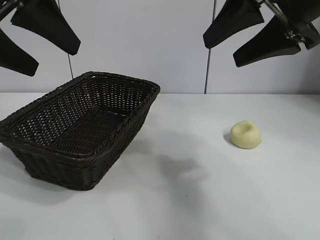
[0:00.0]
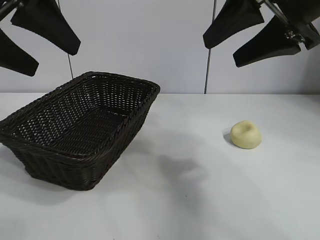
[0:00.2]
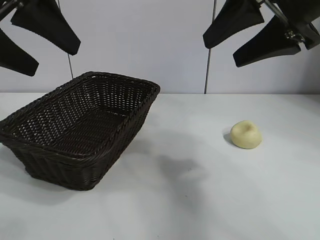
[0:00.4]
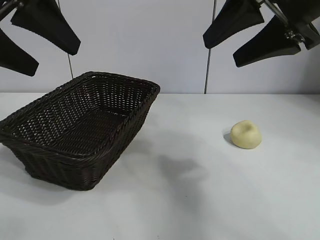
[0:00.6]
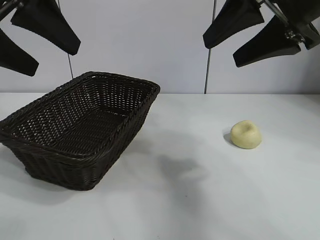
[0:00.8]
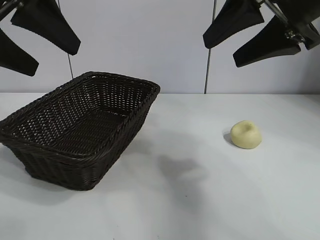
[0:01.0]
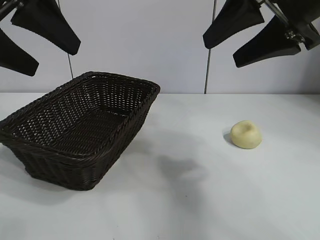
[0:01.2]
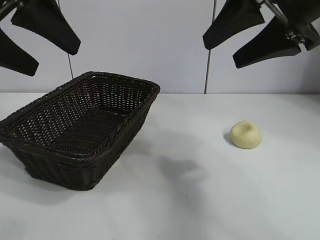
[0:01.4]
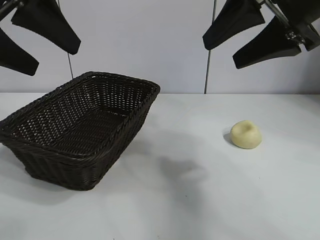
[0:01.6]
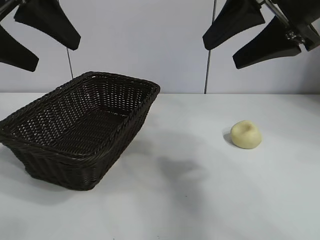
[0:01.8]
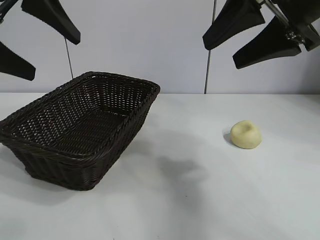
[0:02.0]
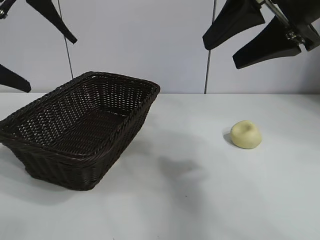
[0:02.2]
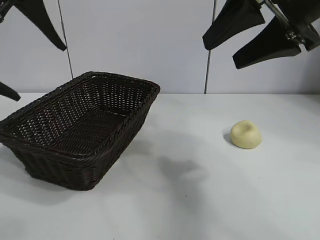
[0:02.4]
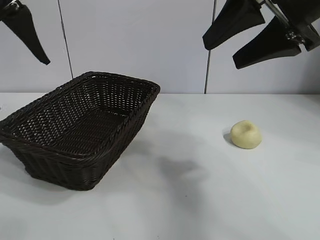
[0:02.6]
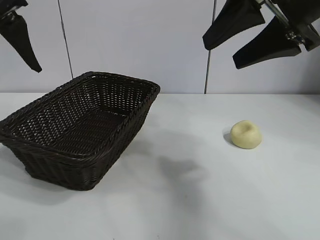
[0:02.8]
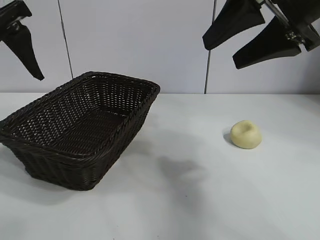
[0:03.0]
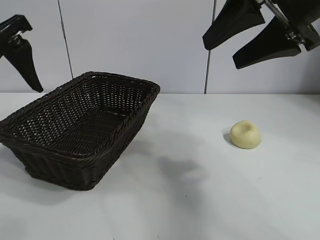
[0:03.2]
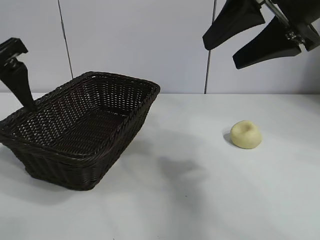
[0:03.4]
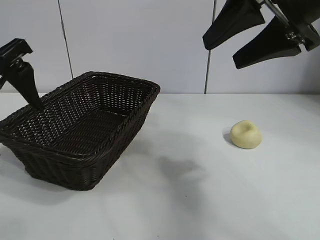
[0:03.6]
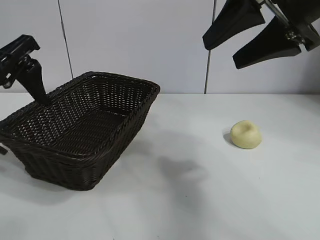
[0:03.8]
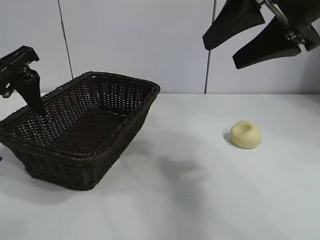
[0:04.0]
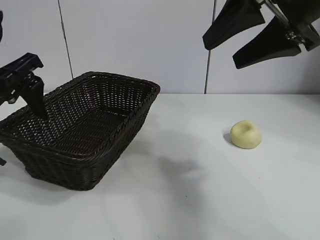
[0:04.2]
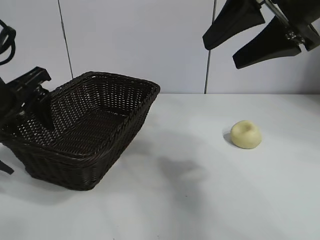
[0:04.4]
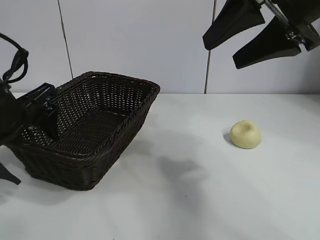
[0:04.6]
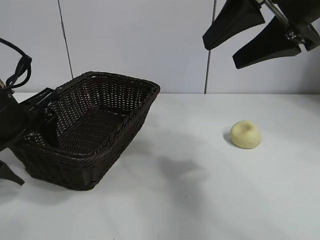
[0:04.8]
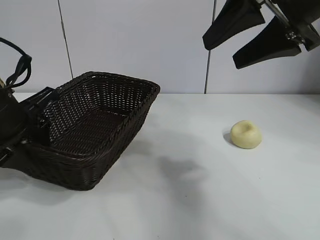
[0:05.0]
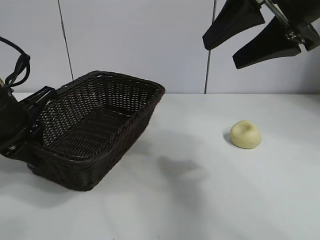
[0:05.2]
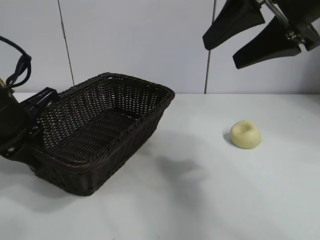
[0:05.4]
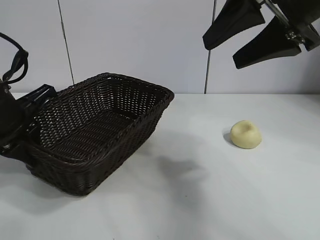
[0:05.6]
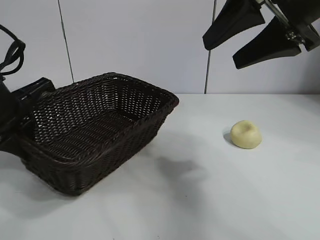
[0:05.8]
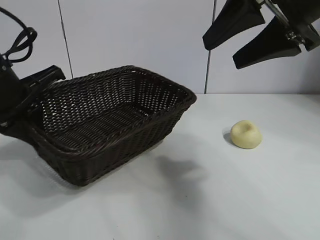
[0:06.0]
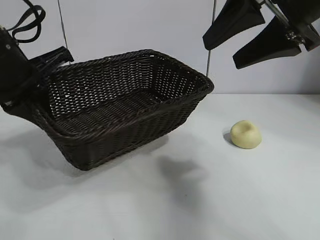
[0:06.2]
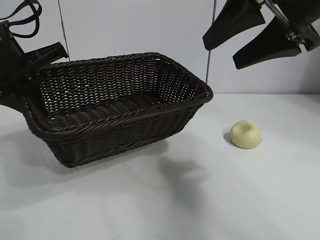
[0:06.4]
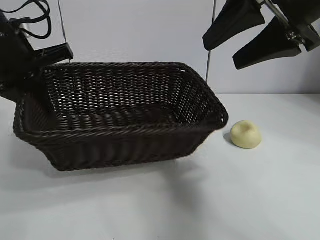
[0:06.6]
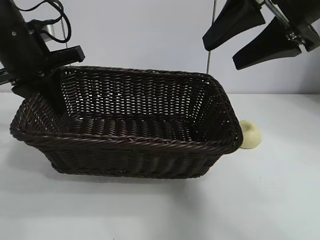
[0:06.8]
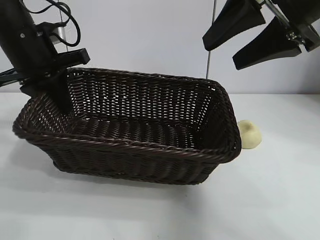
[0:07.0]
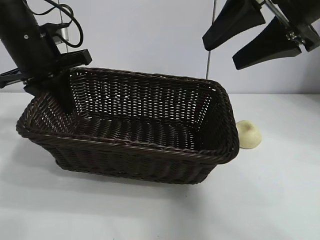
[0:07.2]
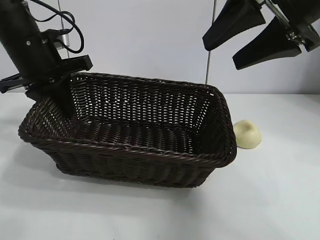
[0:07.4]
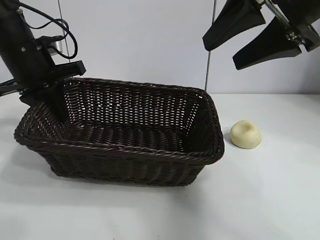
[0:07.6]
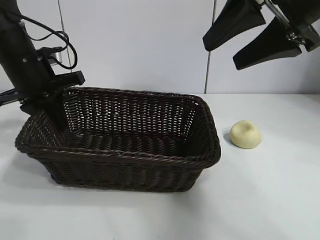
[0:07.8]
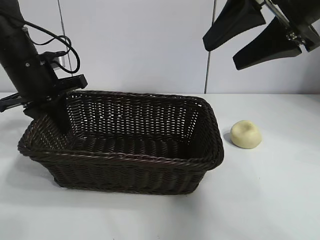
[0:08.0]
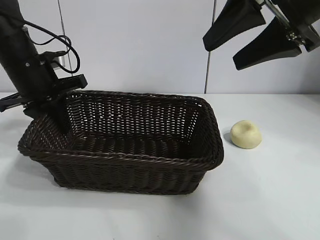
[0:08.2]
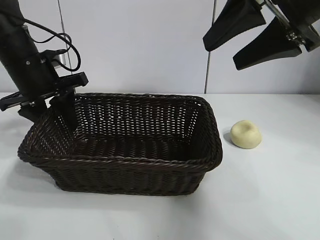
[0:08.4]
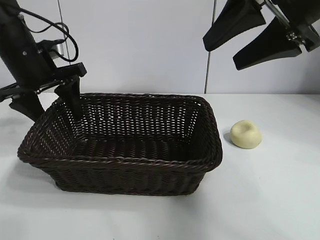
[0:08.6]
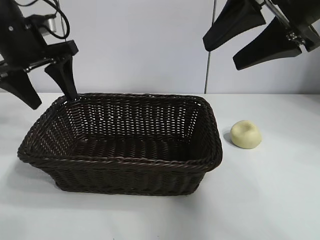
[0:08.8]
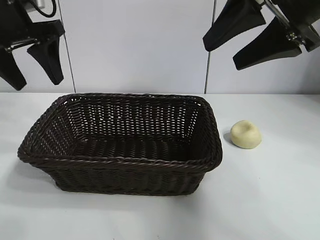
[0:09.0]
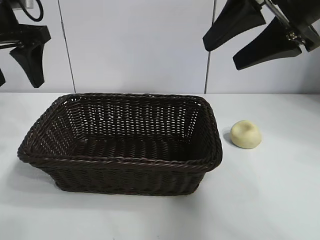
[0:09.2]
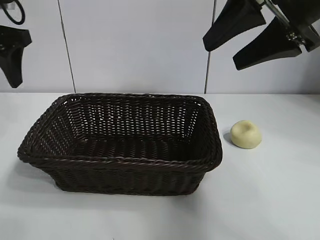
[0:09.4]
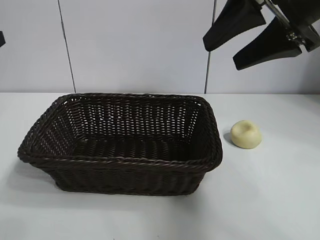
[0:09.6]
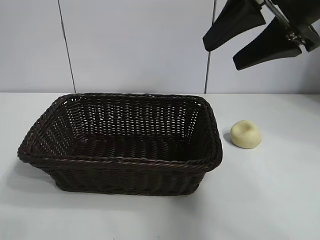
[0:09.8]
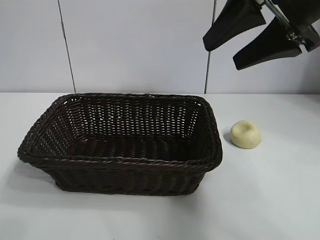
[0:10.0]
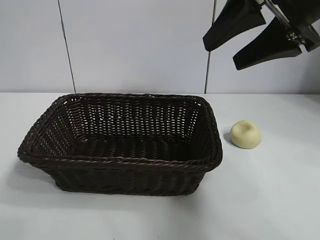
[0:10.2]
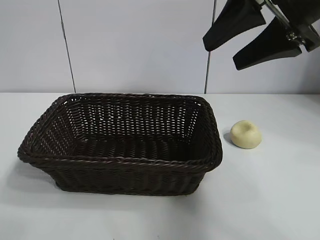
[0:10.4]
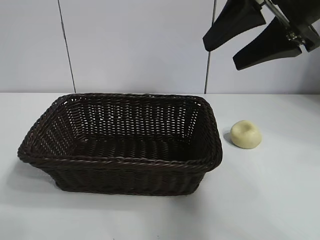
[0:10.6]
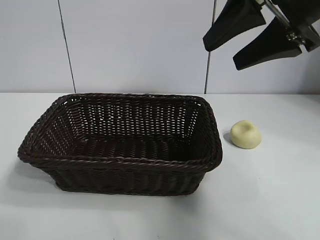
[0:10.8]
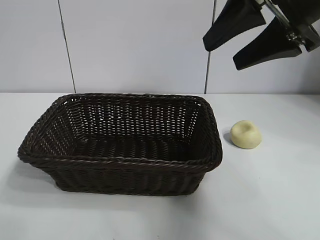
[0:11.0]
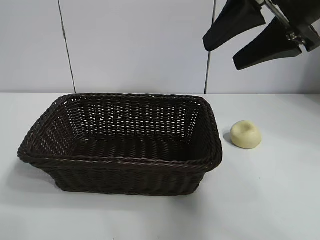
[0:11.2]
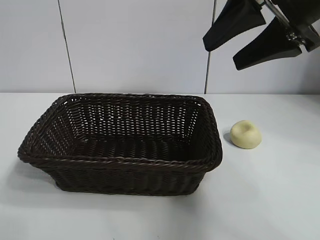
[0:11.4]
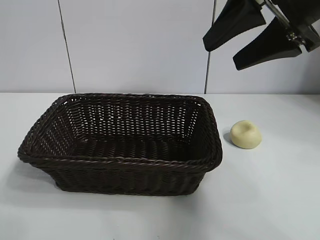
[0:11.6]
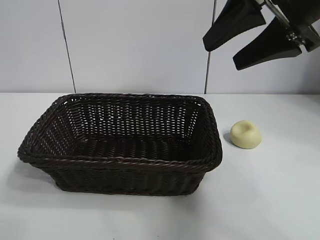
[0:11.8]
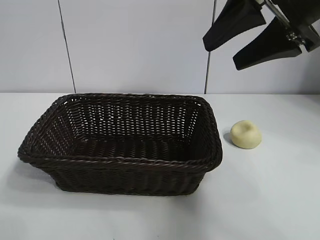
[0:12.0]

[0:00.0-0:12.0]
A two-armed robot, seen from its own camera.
Task of the whole recording: pick up the egg yolk pastry and put it into the basket.
Step, 0:01.8 to 0:05.2: Grasp the basket with left gripper.
Step, 0:05.6 to 0:08.6: Place the basket in the center of view with left gripper.

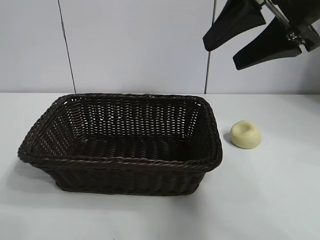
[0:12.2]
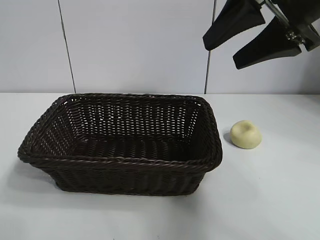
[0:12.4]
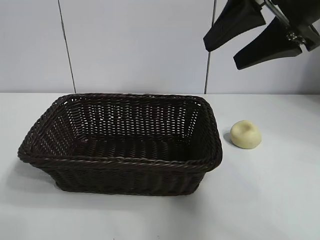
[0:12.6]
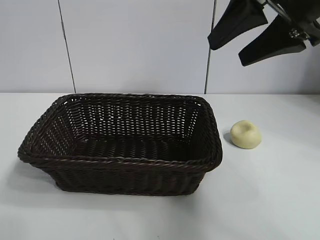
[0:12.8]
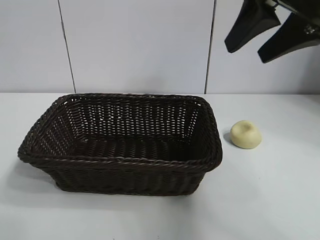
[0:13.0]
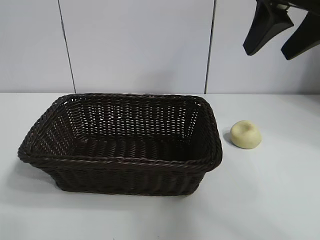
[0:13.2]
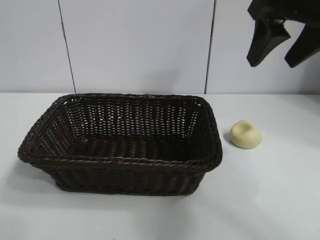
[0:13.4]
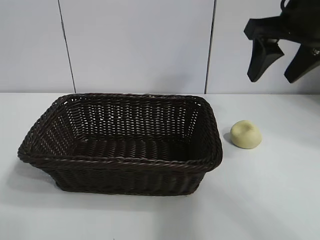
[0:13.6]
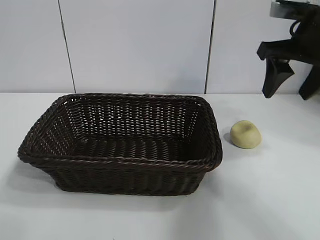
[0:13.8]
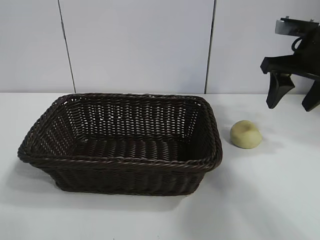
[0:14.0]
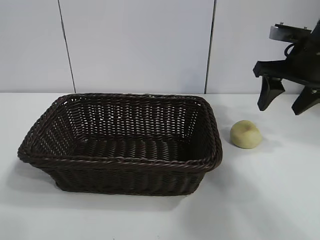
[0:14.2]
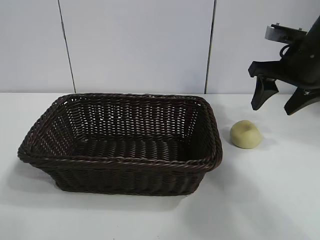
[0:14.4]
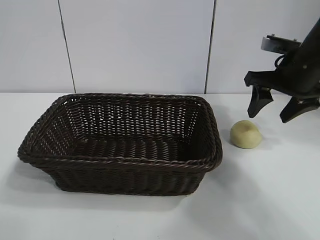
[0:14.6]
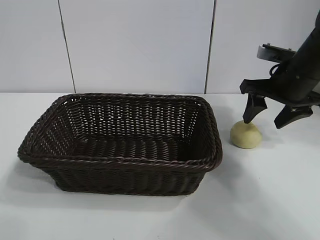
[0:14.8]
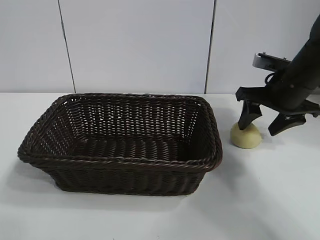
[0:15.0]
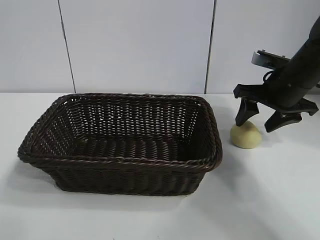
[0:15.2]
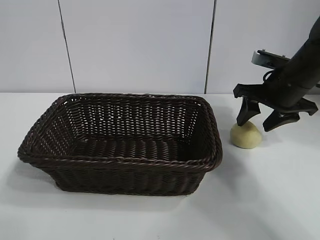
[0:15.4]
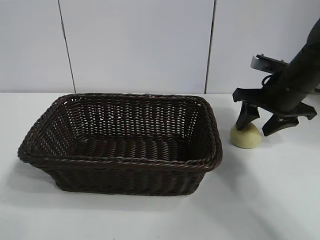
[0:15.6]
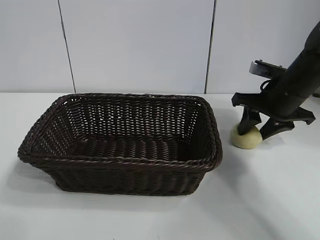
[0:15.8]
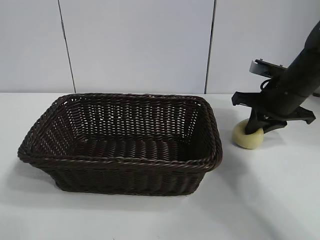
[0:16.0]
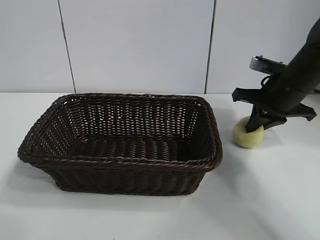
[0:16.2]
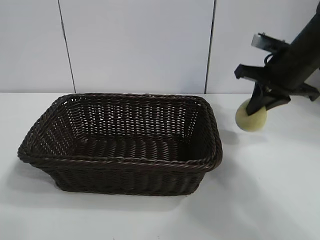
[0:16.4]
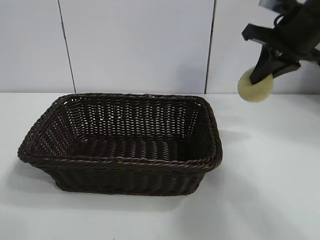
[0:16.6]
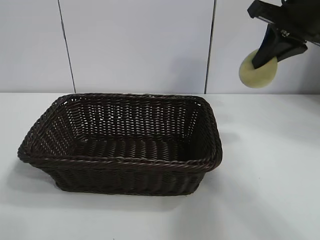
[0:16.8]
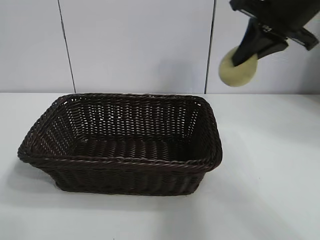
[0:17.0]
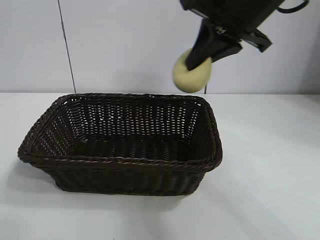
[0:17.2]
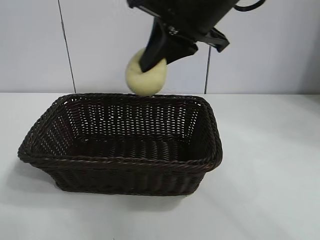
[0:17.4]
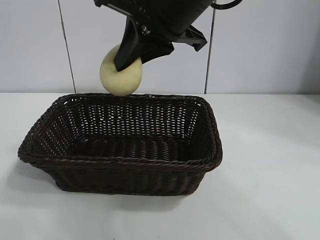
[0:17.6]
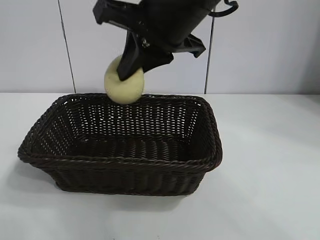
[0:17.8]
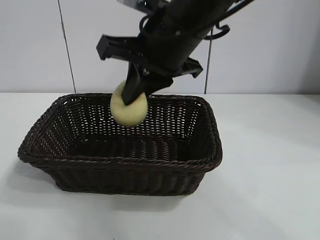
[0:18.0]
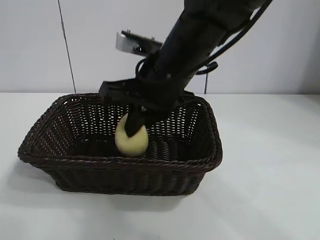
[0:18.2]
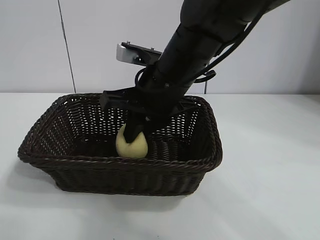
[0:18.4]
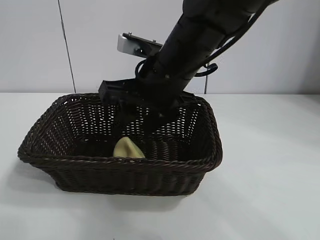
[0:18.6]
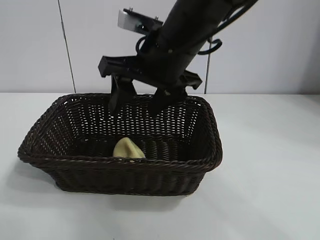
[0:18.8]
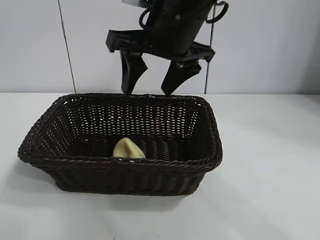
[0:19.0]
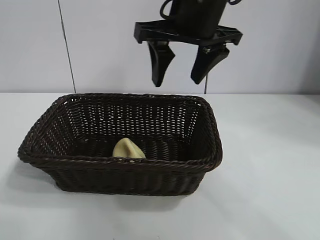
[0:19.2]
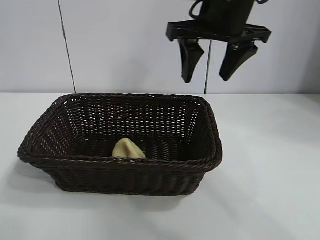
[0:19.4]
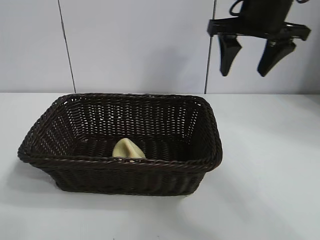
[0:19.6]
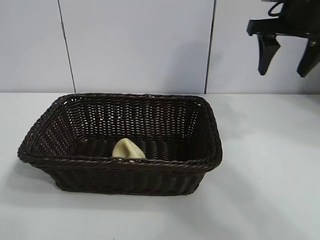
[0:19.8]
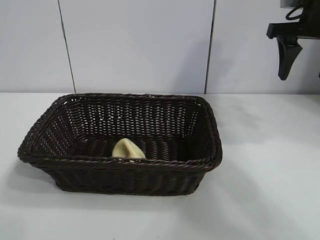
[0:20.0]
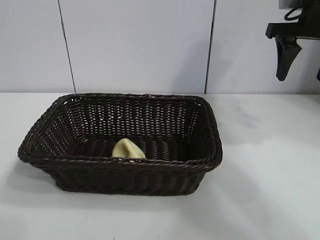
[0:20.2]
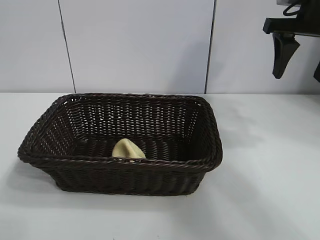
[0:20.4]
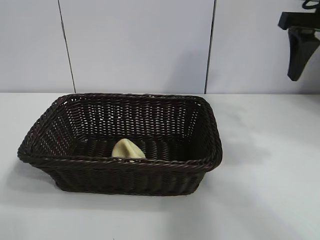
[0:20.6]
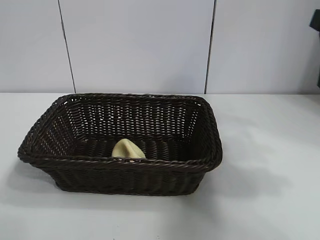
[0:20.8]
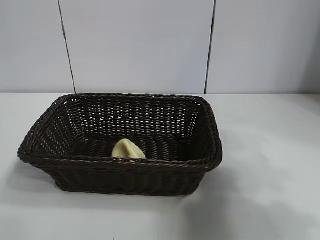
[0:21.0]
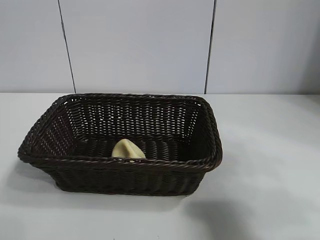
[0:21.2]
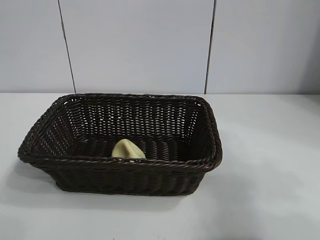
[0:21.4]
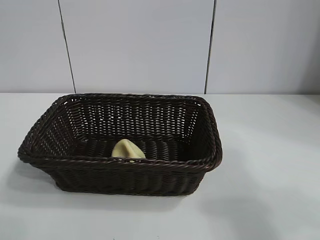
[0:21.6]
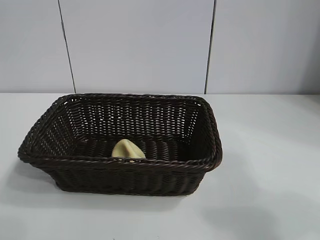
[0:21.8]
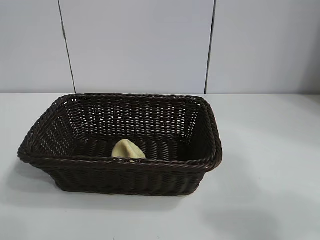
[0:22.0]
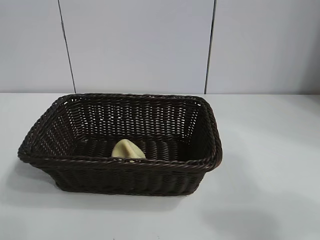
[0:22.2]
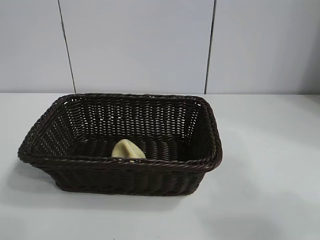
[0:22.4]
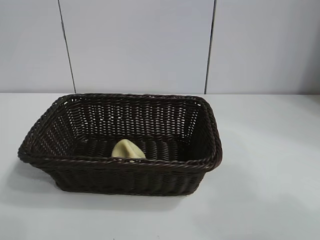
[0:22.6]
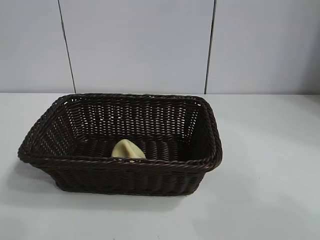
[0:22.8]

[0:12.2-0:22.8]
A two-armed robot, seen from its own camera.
Task of the whole recording: pick up the egg yolk pastry and put it into the basket.
Step, 0:12.2 to 0:16.0: Grasp egg yolk pastry with right gripper.
Step, 0:16.2 to 0:18.6: Place the egg yolk pastry in the basket with right gripper.
